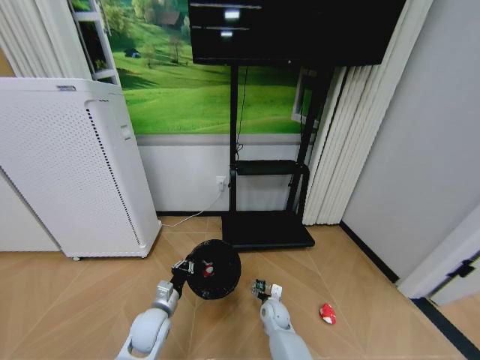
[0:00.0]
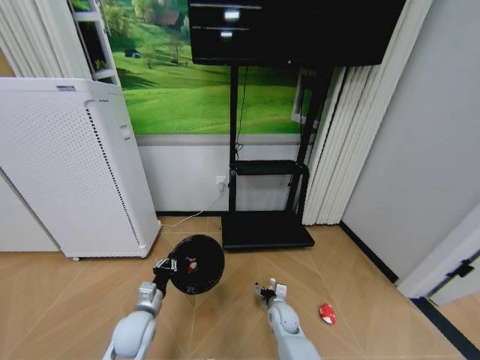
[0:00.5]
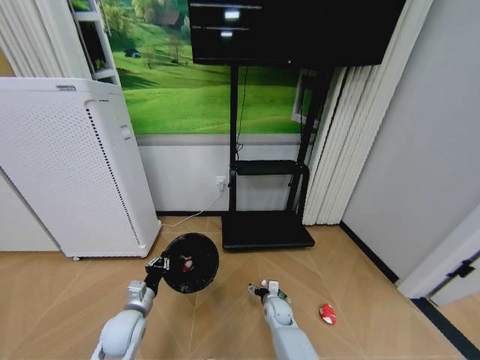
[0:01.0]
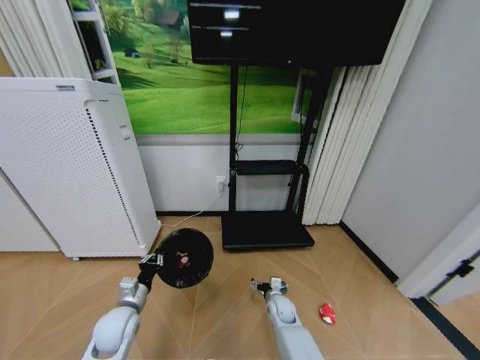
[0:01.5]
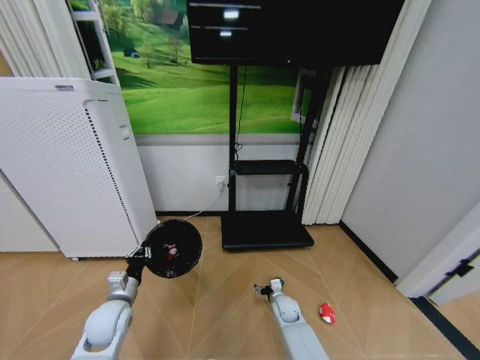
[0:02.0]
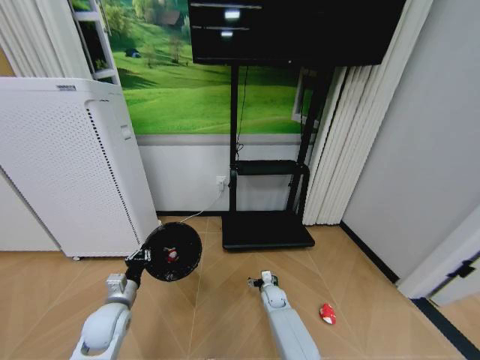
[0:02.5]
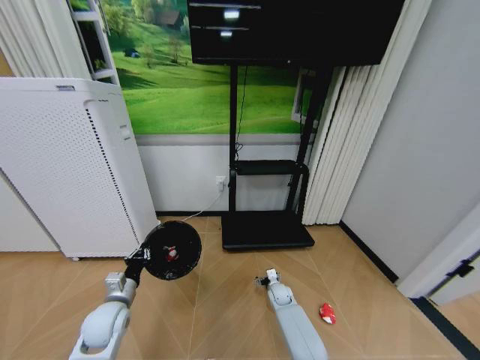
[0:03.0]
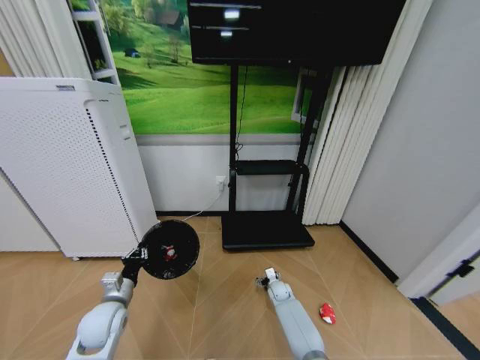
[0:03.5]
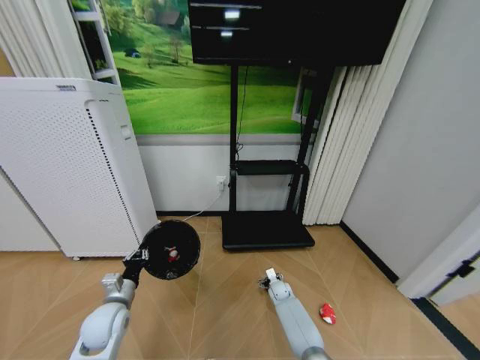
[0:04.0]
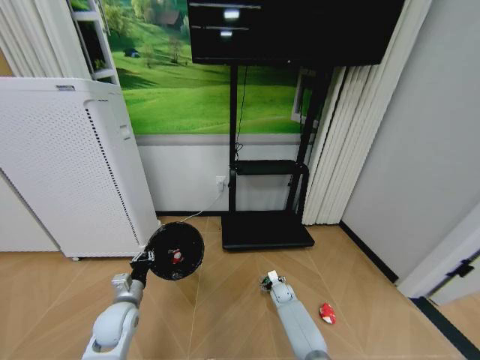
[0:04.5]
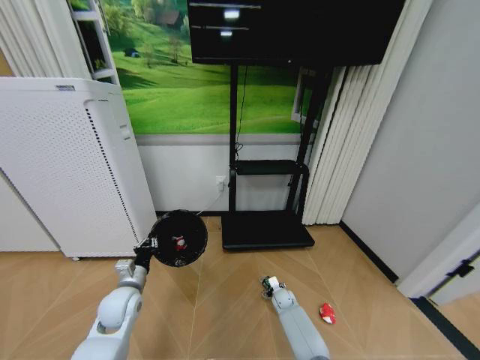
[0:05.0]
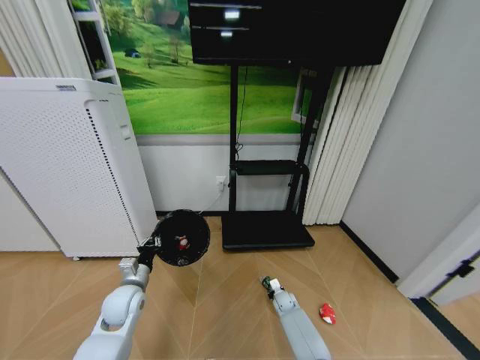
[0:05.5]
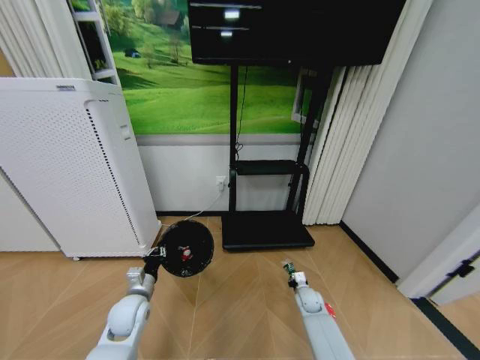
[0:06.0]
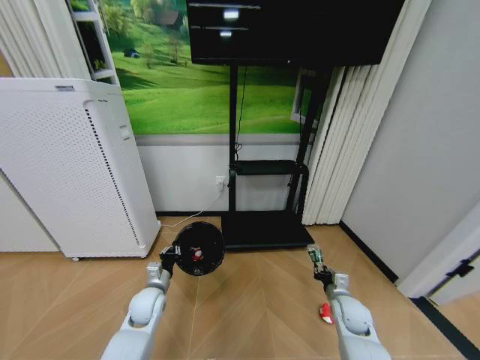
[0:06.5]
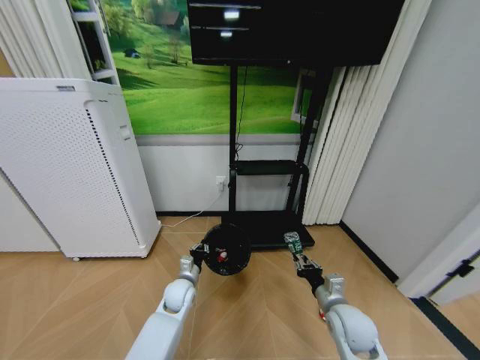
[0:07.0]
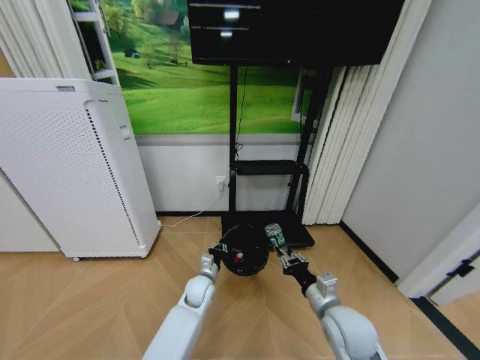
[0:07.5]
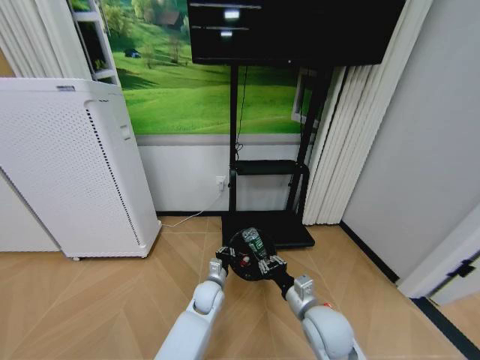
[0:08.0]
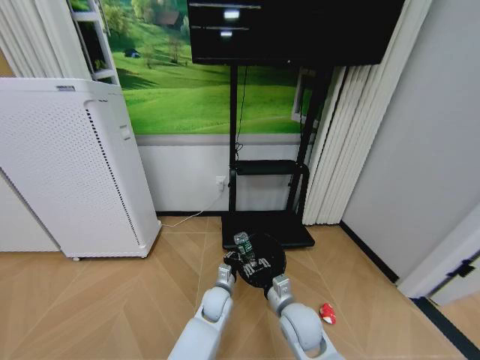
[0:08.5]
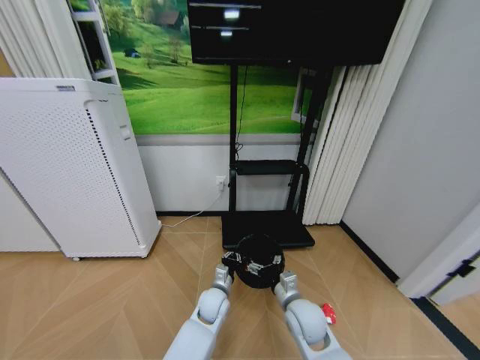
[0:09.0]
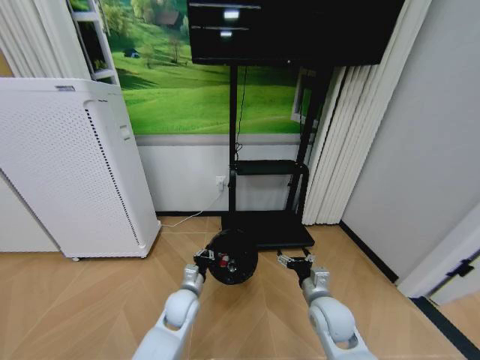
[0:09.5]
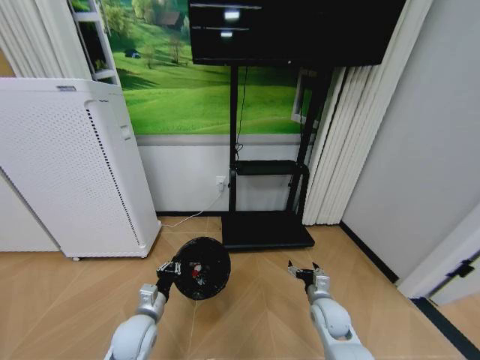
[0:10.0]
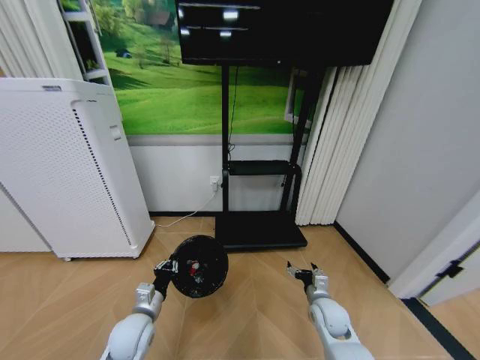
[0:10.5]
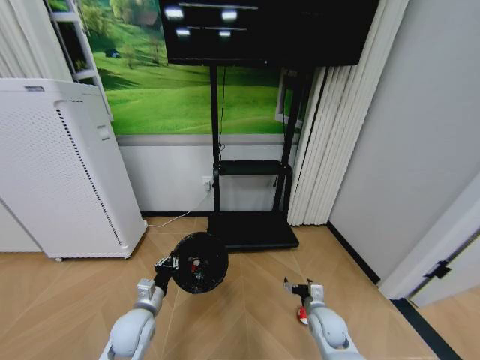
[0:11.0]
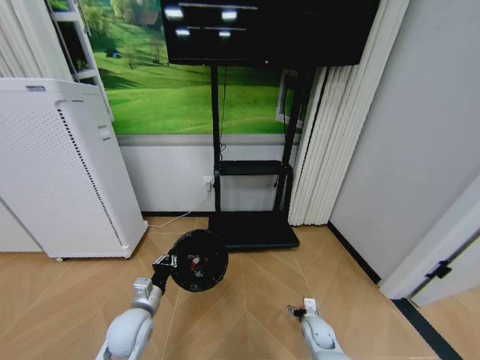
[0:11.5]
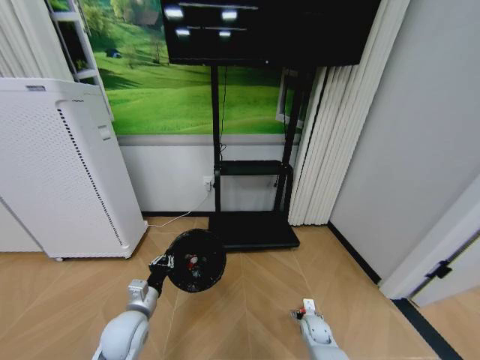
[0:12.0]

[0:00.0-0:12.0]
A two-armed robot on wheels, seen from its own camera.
Task of the whole recording: Pick up the trash bin and place the garbage on the floor into it.
0.0 to 2.0 s: The left gripper shifts about 10 cm to the left; the right gripper moves approximately 5 cm.
2.0 to 4.0 s: The right gripper moves forward, approximately 10 cm.
4.0 to 6.0 s: The right gripper shifts some 10 cm to the right and backward, and closes, while the left gripper changes place by approximately 5 cm.
6.0 to 8.0 s: The left gripper travels to the right by about 20 cm; the right gripper moves upward, backward and to the left, approximately 30 cm.
8.0 to 10.0 s: The right gripper goes some 15 cm downward, to the right and forward, and opens its fingers, while the left gripper goes about 20 cm to the left and backward.
10.0 to 12.0 s: The right gripper heads downward, covering roughly 15 cm.

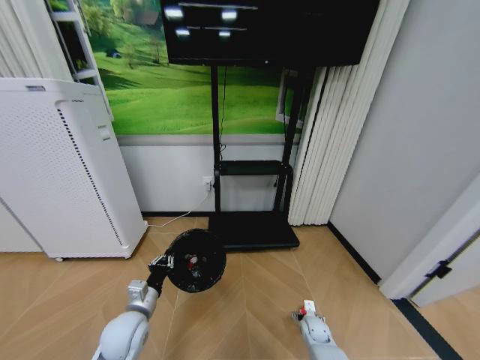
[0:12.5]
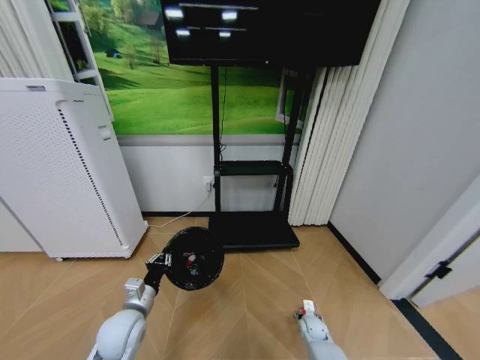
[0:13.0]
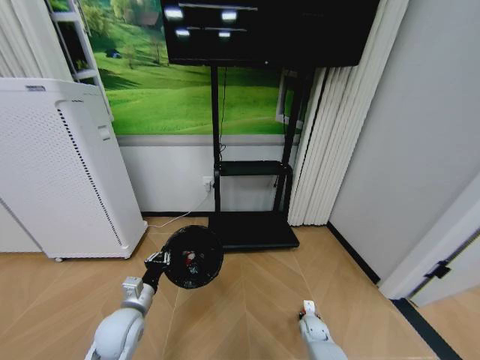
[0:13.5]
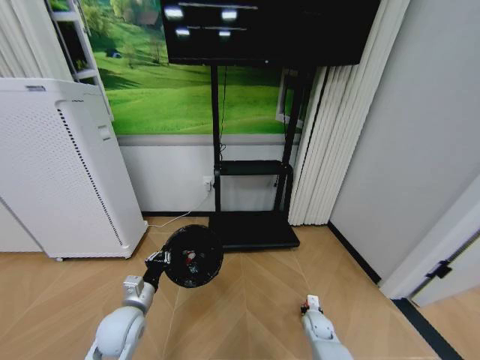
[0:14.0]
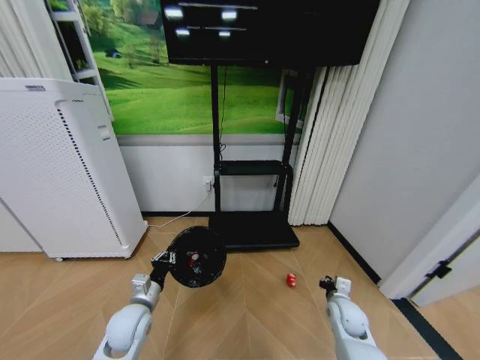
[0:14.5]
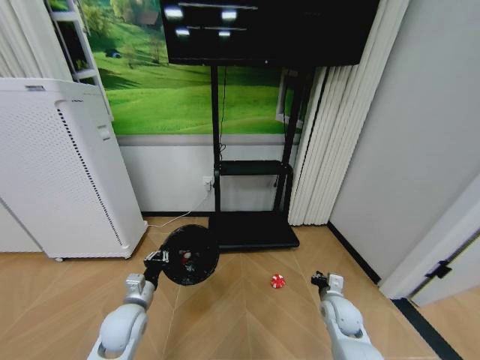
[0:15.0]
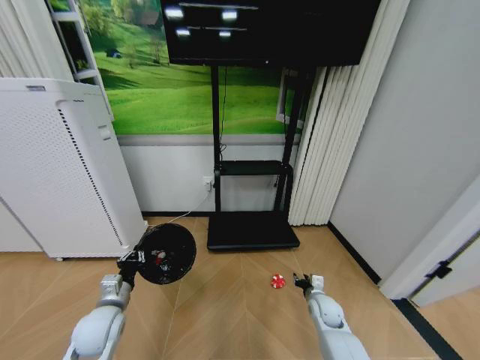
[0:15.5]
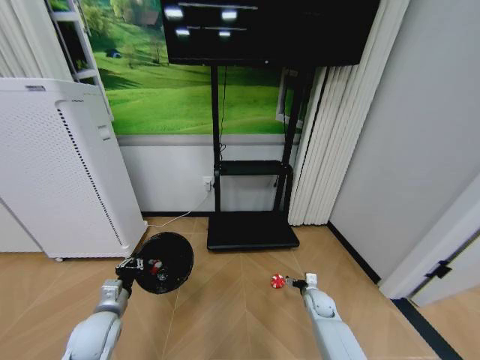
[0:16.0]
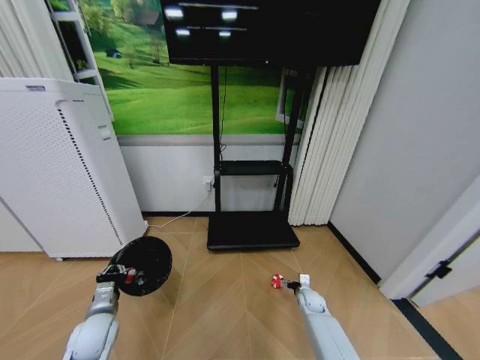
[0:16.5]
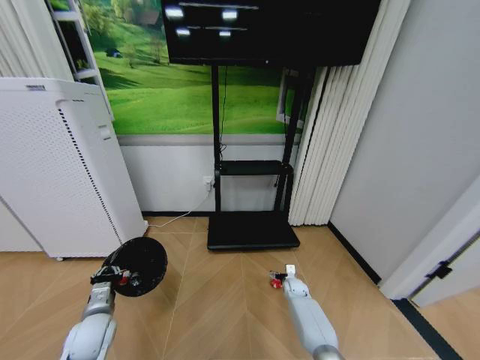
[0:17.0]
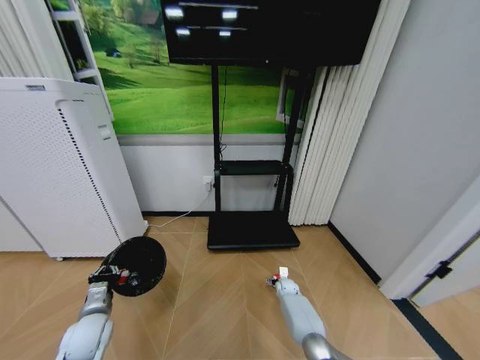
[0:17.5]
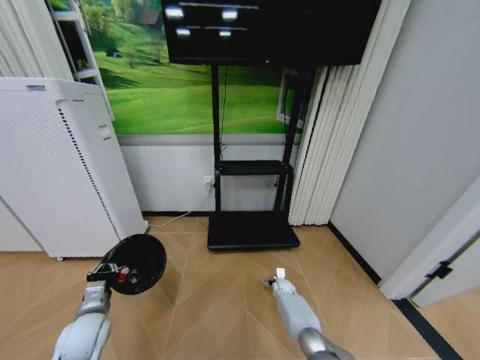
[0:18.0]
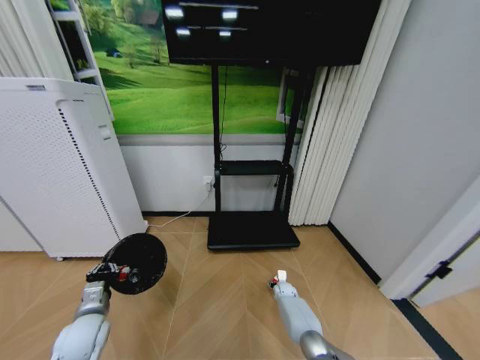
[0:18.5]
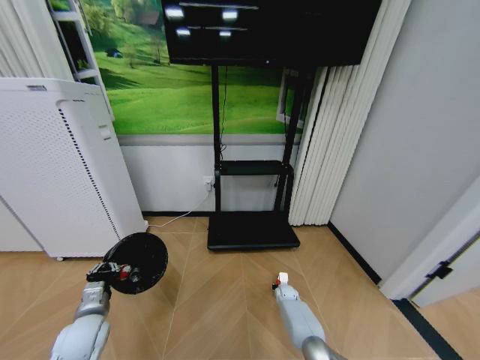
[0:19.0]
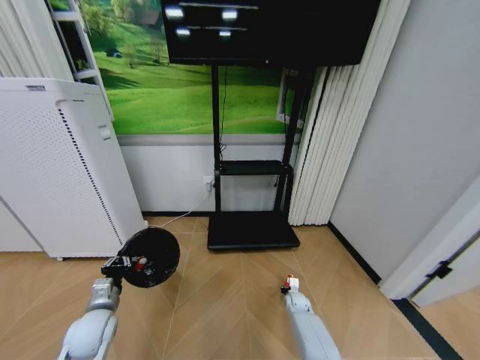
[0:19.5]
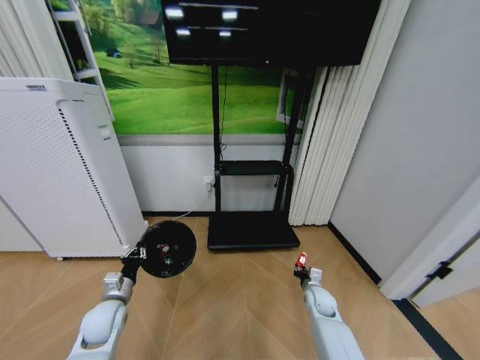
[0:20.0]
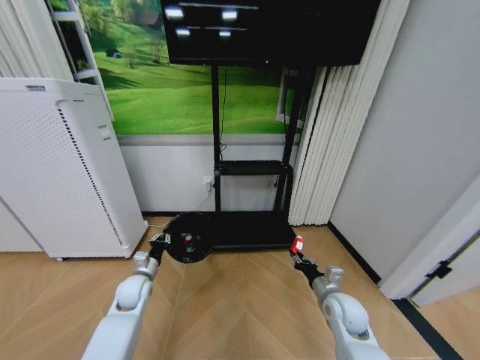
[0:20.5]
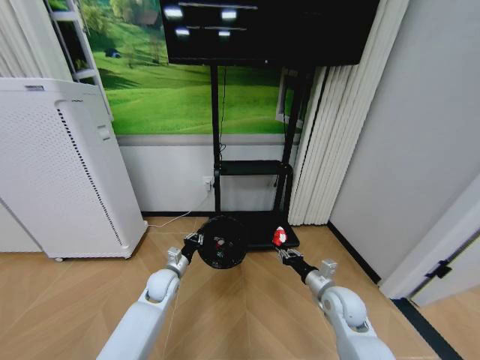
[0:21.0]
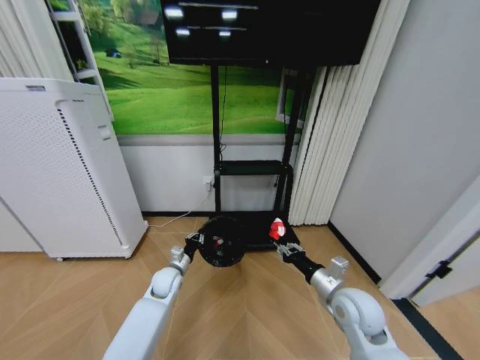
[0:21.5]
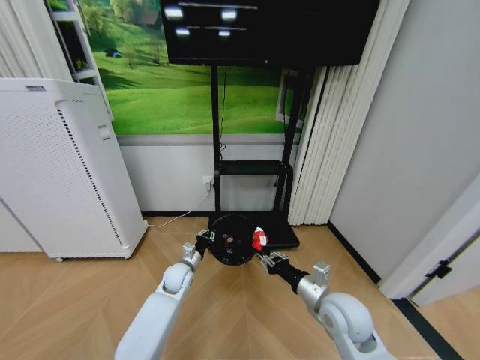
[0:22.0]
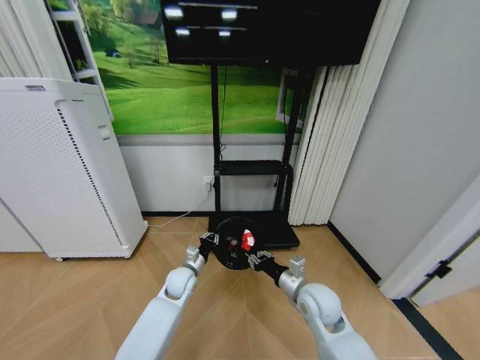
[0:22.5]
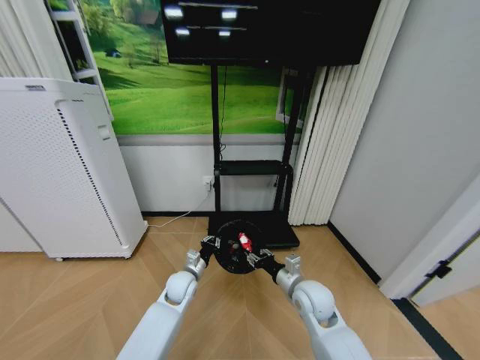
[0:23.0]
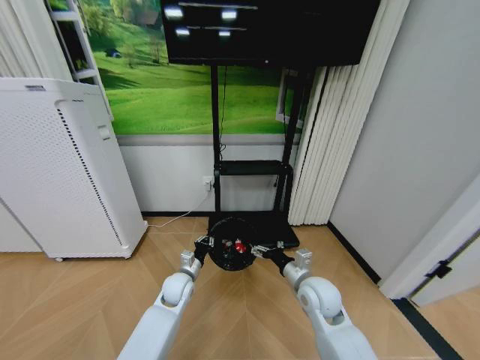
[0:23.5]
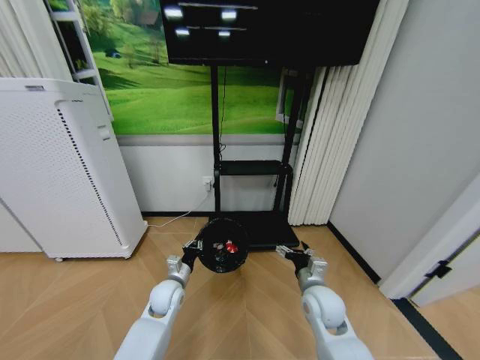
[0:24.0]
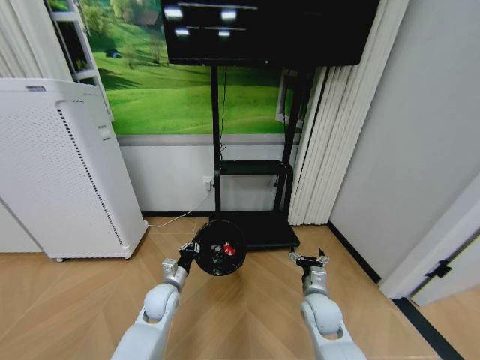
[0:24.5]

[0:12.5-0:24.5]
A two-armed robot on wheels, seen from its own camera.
Task of the whole recording: Pick up the trash bin and place the garbage on the floor into it.
12.5 to 14.5 s: The right gripper travels upward by some 15 cm, and closes.
14.5 to 16.5 s: The right gripper travels downward and forward by approximately 15 cm, and opens up, while the left gripper is displaced to the left by some 10 cm.
16.5 to 18.5 s: The right gripper is displaced to the left, forward and downward by approximately 10 cm.
18.5 to 20.5 s: The left gripper heads forward, covering some 10 cm, while the right gripper heads upward and backward, covering roughly 30 cm, and closes its fingers.
20.5 to 22.5 s: The left gripper moves to the right, roughly 15 cm. Meanwhile the right gripper goes approximately 10 cm to the left and upward.
22.5 to 24.5 s: The right gripper heads downward, covering approximately 5 cm, and opens its fingers; the left gripper travels backward by some 5 cm.

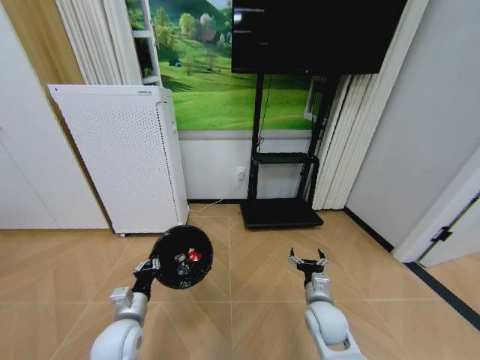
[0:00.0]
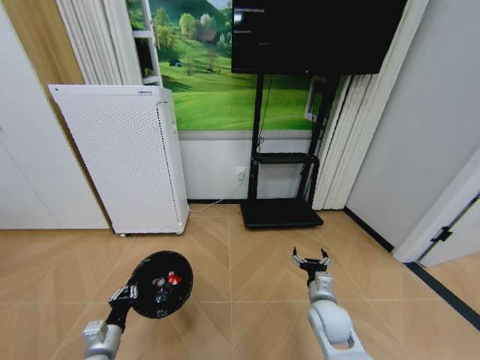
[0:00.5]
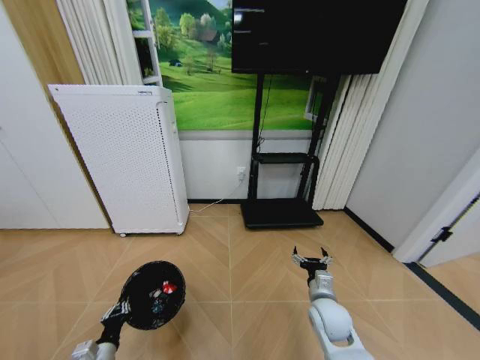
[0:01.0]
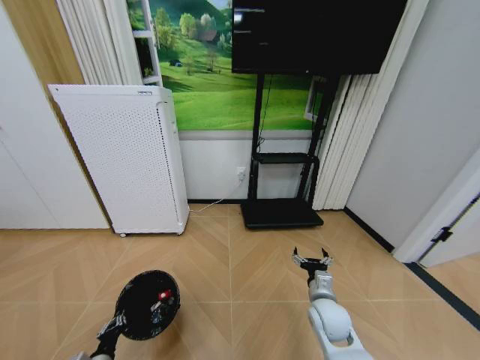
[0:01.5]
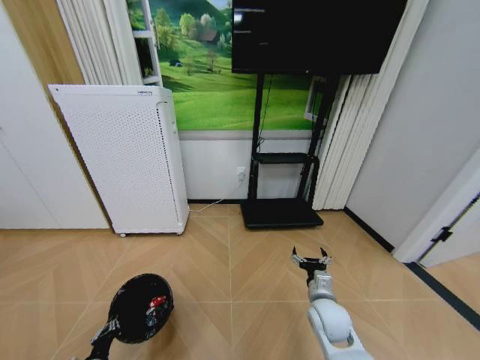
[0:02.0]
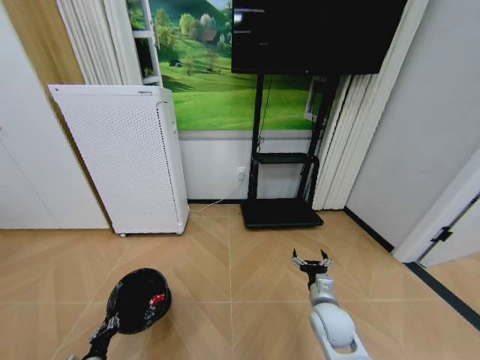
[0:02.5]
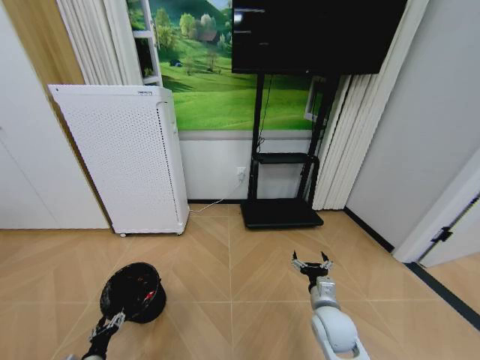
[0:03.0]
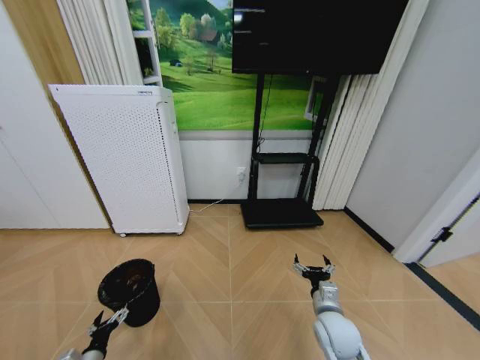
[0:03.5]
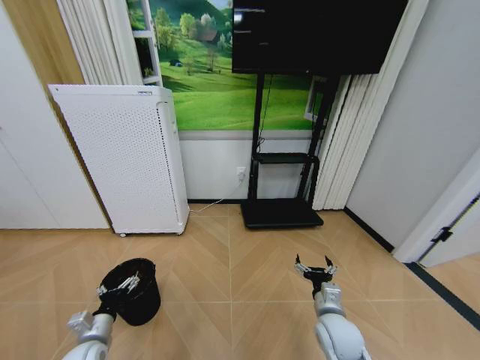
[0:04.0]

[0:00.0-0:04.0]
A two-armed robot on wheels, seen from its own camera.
Task of the whole recording: Pick up the trash bin and place the garbage on the floor into it.
0.0 to 2.0 s: The left gripper is displaced downward, to the left and backward by some 25 cm.
2.0 to 4.0 s: The left gripper moves upward and forward, roughly 10 cm, and opens up.
